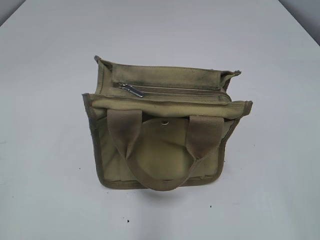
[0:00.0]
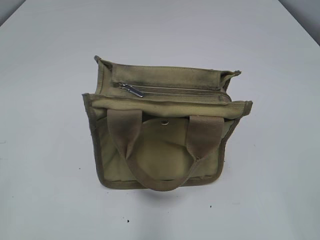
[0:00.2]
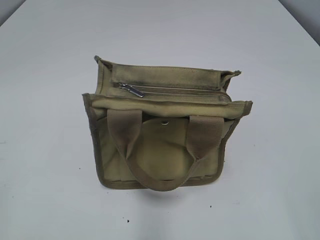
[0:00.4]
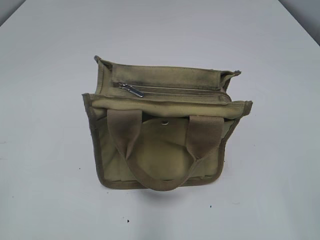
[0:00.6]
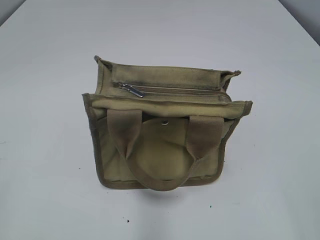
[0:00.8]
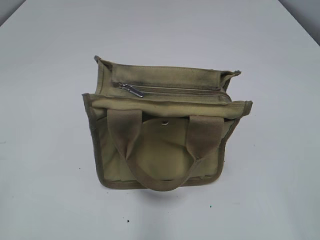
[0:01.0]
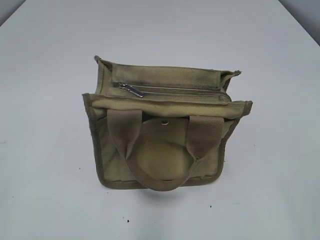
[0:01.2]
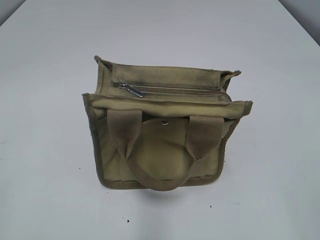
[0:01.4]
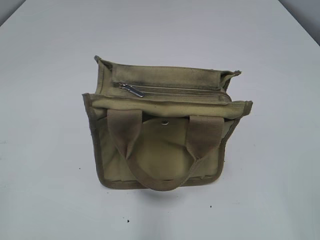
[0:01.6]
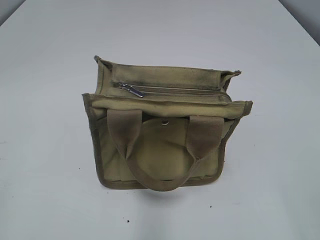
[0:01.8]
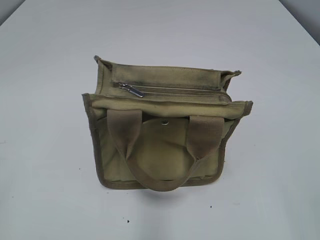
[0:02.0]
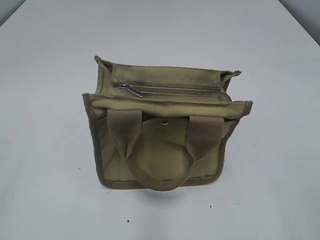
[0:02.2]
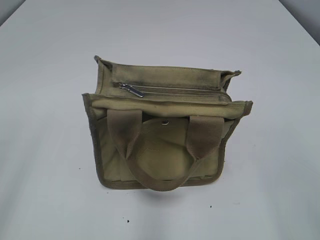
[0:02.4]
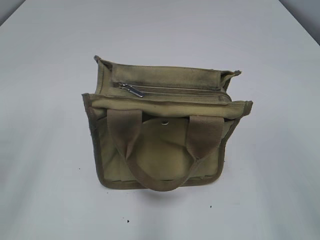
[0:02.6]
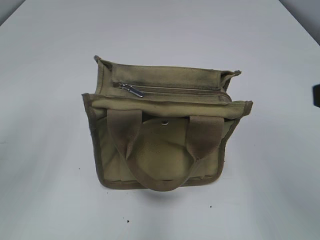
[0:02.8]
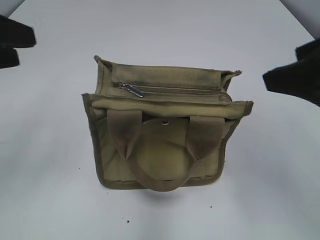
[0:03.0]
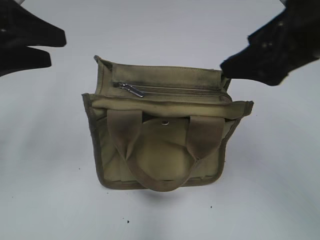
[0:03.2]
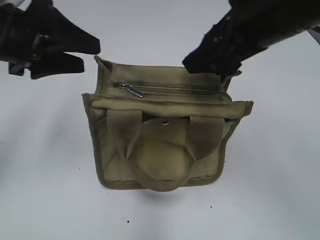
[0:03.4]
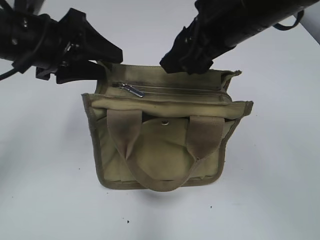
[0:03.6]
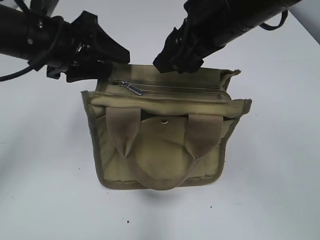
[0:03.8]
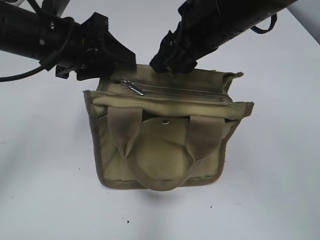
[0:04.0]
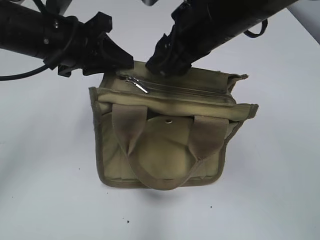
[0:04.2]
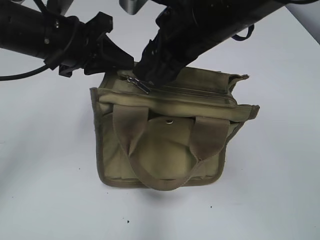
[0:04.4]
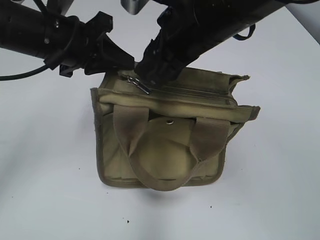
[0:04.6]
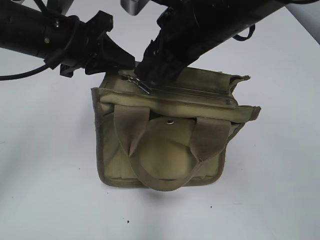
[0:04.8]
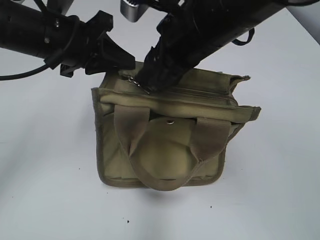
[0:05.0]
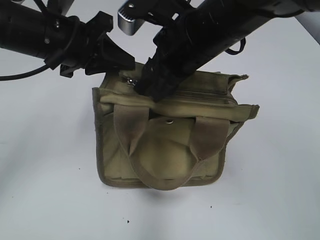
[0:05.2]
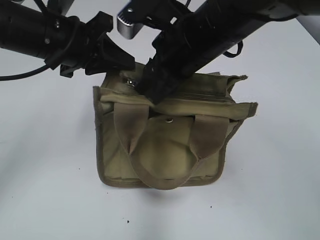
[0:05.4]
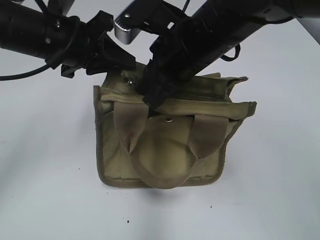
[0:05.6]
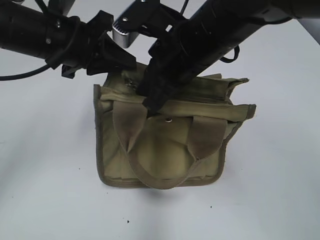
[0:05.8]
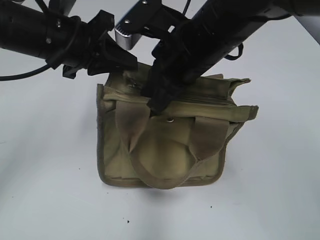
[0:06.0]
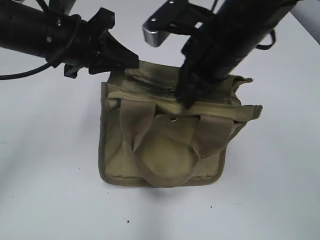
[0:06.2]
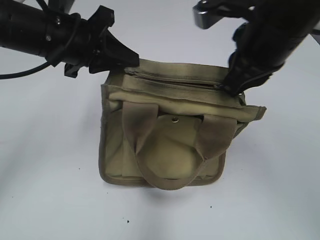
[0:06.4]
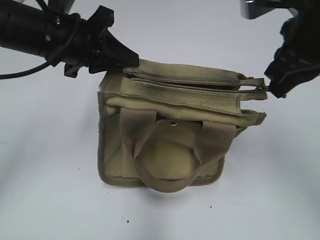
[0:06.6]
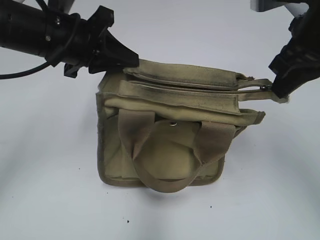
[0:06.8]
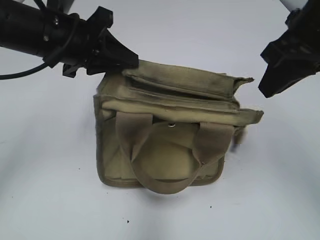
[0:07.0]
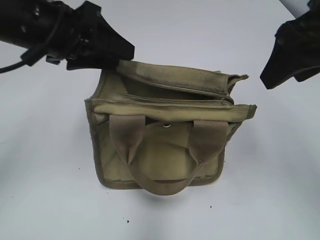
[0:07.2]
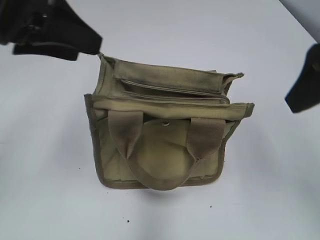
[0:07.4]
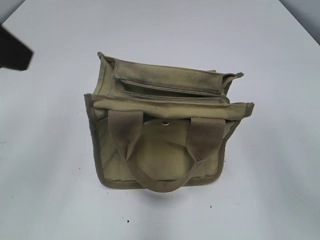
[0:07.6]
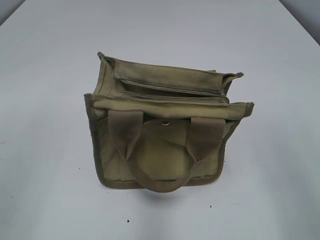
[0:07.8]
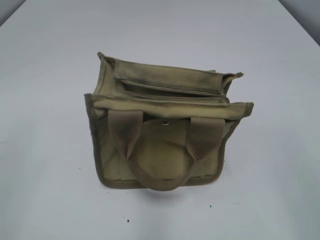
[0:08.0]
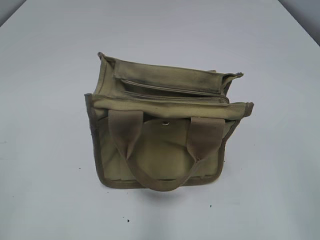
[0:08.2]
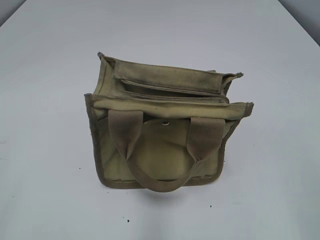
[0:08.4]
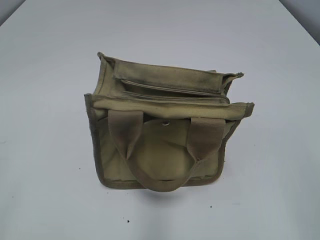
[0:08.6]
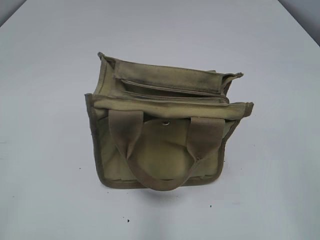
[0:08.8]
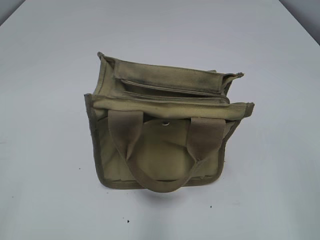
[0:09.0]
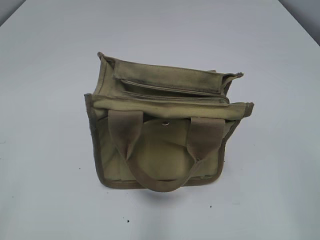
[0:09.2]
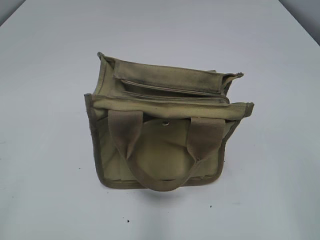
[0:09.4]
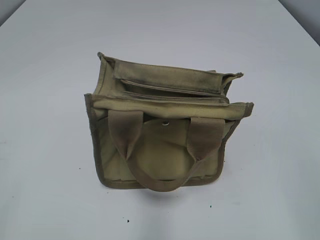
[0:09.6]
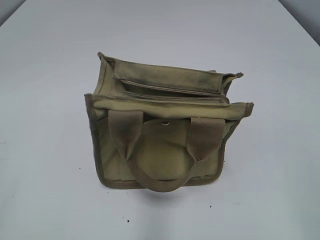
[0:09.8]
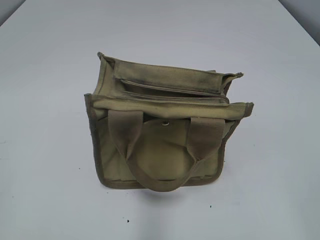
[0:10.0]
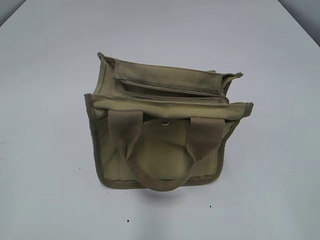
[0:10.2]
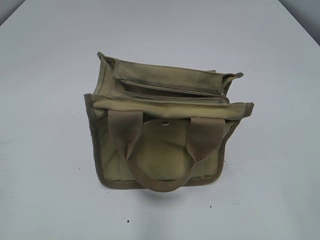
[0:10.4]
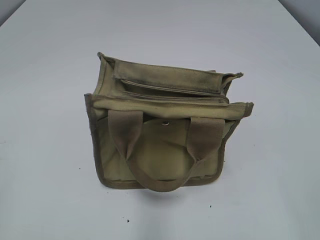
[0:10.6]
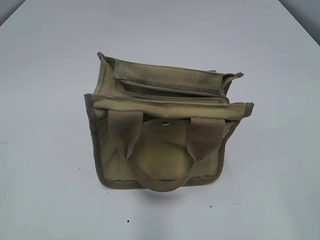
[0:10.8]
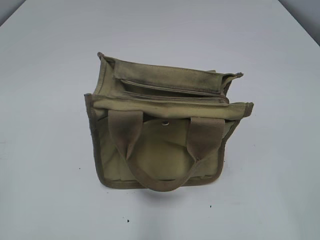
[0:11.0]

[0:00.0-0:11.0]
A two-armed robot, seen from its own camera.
Step, 0:00.0 to 0:06.8: Pull open the zipper with your right hand.
Step, 0:07.0 to 0:07.4: Hold the bag with your left hand.
0:01.6 to 0:03.2: Both grippers move forward, some 25 cm.
0:03.2 to 0:04.8: The right gripper goes approximately 15 cm to the left and forward; the left gripper heads to the right and forward, covering roughly 10 cm, and closes up.
0:04.8 to 0:06.2: The right gripper closes its fingers.
0:06.2 to 0:07.8: The left gripper goes approximately 25 cm backward, to the left and upward, and opens up. Meanwhile the right gripper shifts some 25 cm backward and to the right, and opens up.

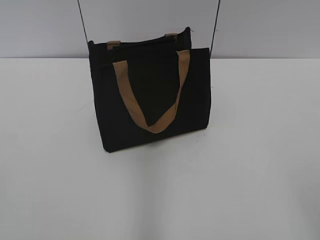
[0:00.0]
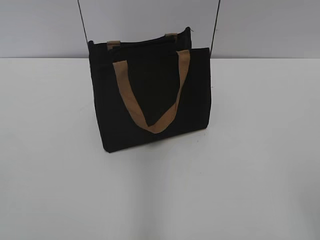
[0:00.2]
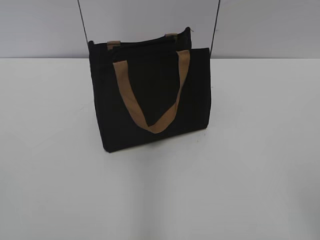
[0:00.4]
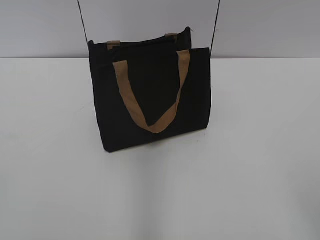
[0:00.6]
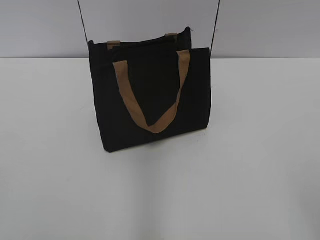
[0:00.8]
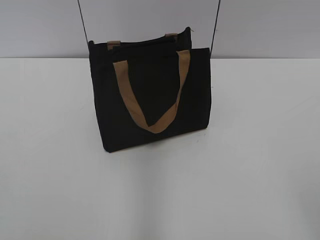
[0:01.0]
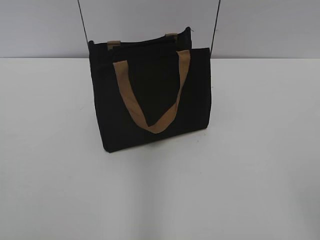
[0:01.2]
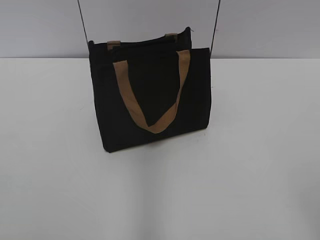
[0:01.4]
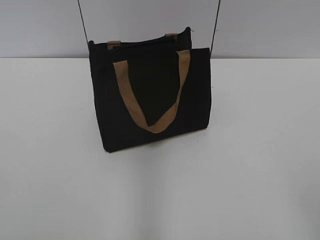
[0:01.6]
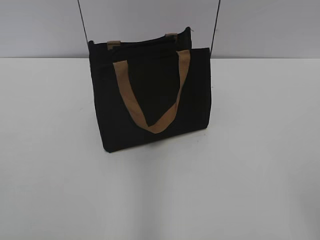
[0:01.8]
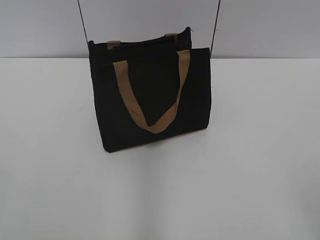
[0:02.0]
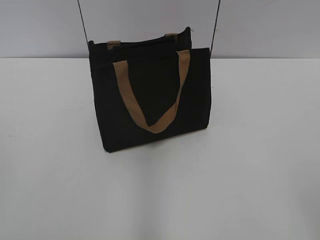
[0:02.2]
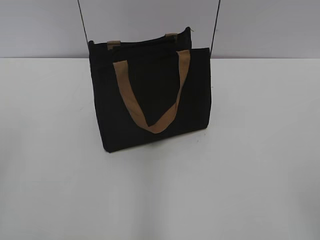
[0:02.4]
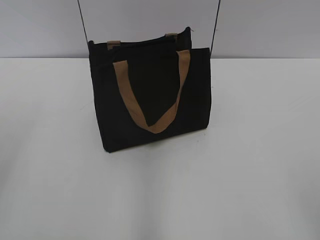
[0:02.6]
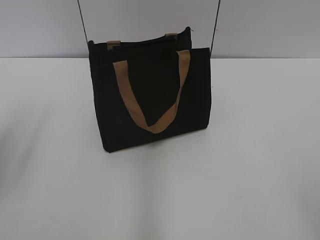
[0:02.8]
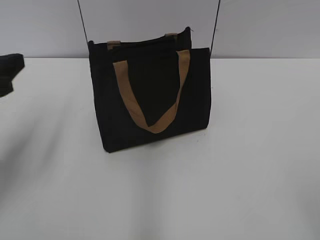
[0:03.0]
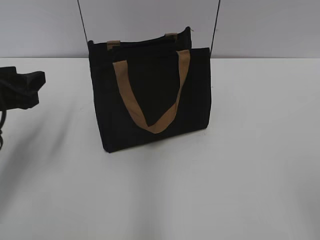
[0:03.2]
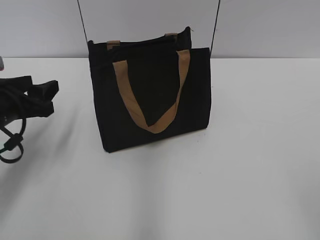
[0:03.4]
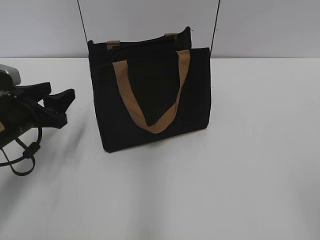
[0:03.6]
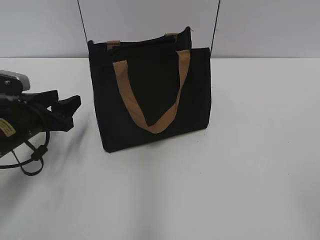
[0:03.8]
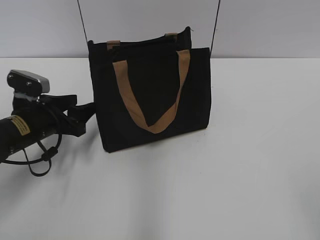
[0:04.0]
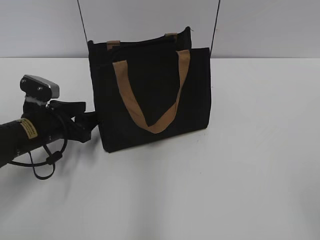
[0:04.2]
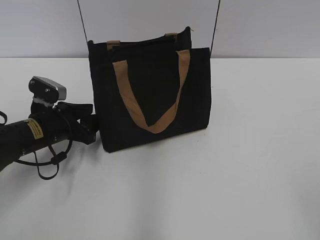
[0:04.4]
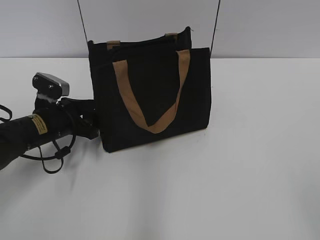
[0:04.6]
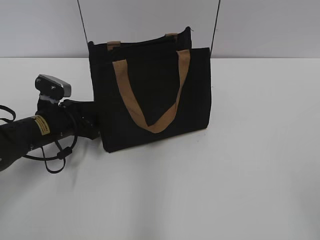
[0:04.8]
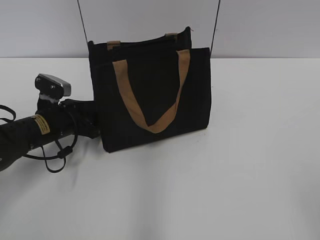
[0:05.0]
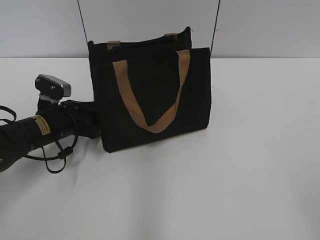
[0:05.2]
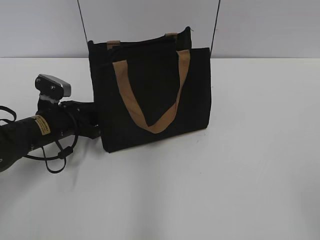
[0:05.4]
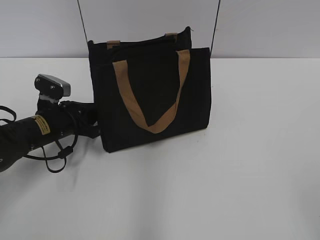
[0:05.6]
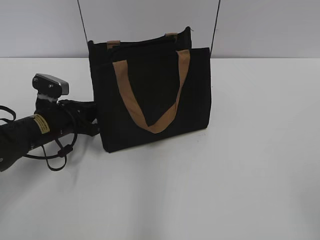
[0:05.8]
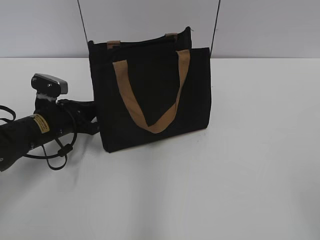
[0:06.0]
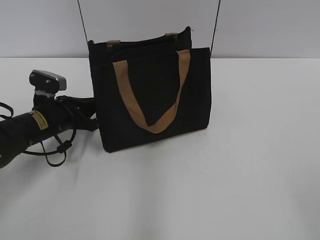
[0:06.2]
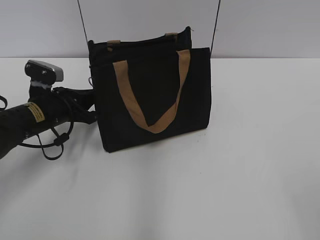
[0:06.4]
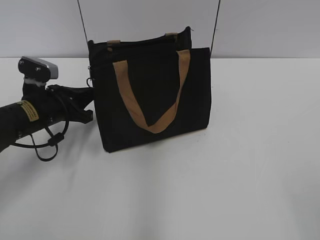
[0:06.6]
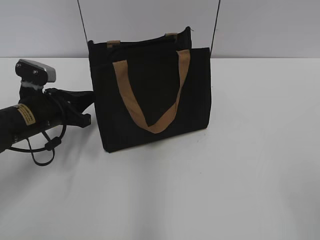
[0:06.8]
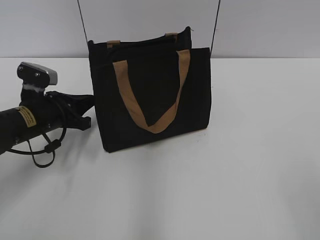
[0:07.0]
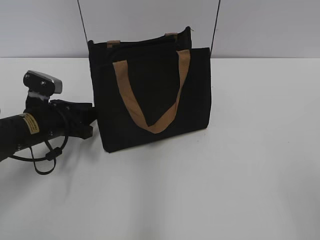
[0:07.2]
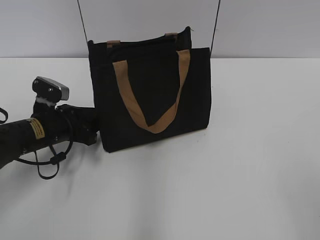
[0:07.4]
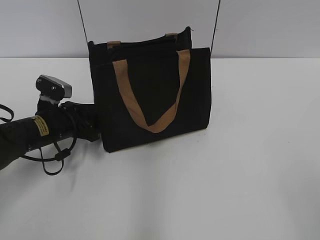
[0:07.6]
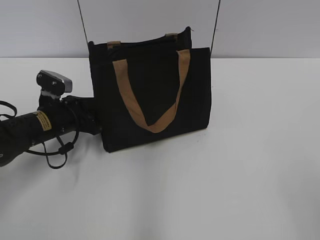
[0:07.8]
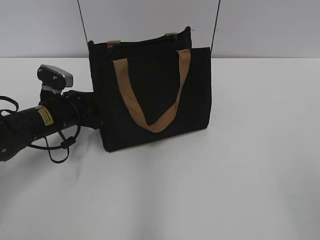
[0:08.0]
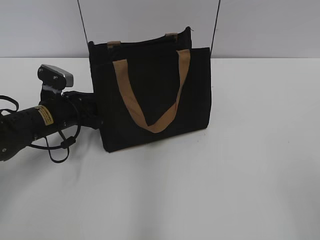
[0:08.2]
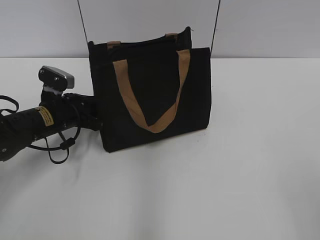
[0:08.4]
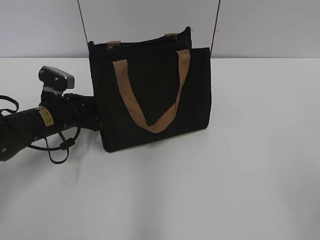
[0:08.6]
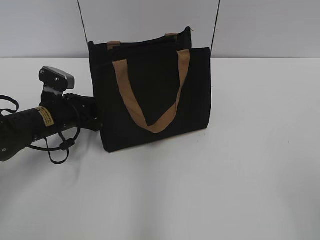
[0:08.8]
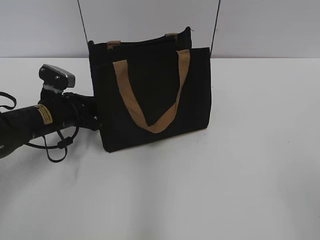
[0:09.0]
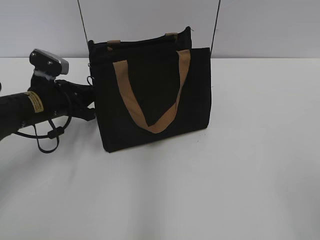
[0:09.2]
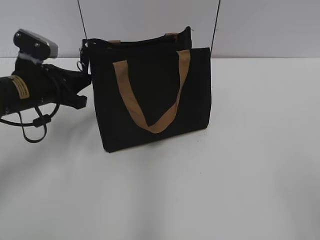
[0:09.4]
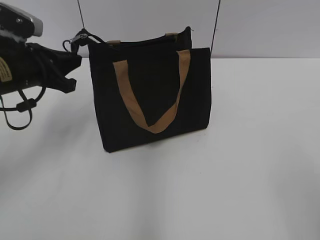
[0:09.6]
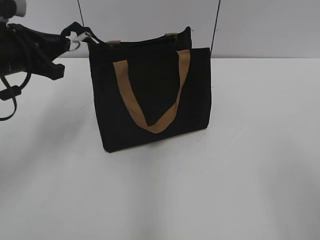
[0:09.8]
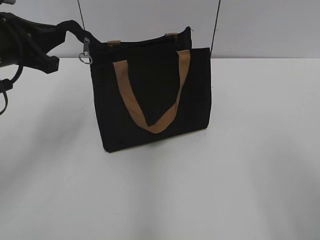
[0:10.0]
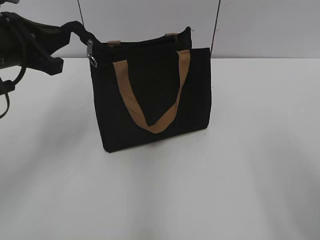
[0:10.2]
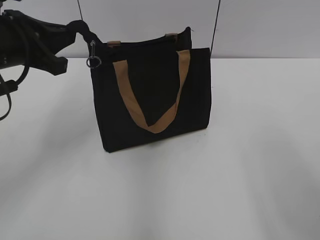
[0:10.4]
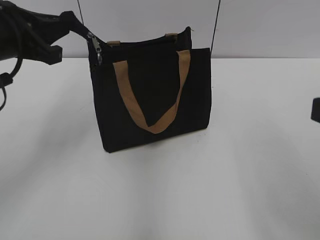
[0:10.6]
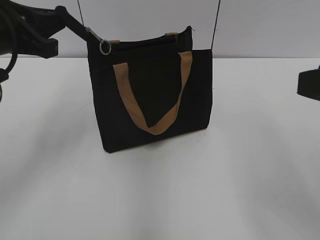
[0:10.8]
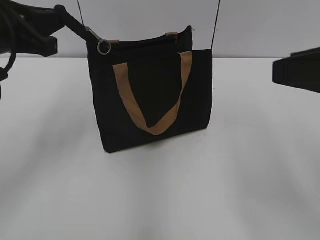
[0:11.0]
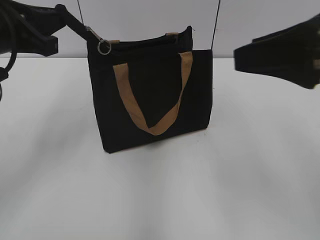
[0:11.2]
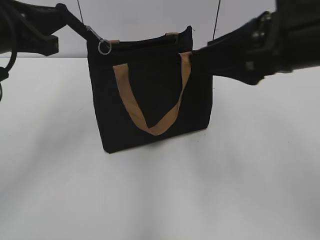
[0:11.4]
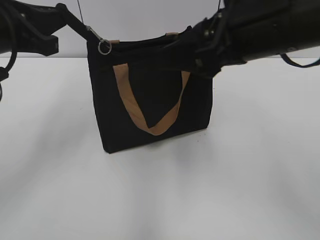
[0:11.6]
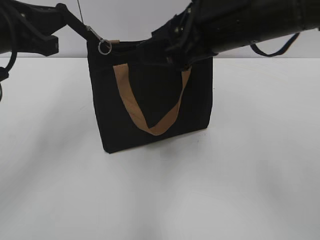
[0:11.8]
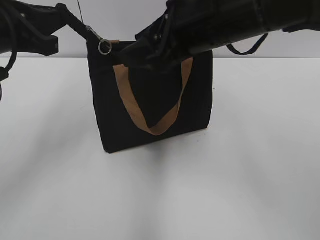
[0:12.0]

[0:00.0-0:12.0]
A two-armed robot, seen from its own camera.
0:01.6 to 0:03.0: The left gripper travels forward by some 20 cm, and opens.
0:03.0 to 0:04.4: The left gripper heads downward and forward, covering roughly 20 cm.
0:04.4 to 0:06.0: The left gripper closes up.
0:06.0 to 0:07.6: The left gripper opens.
0:07.6 to 0:09.0: The left gripper closes.
0:09.0 to 0:10.4: The left gripper shifts some 20 cm upward.
0:10.4 to 0:12.0: The right gripper heads forward and to the left, covering about 25 cm.
